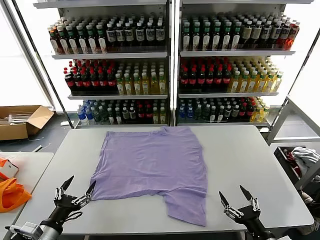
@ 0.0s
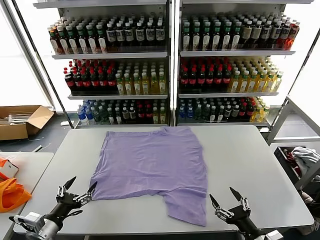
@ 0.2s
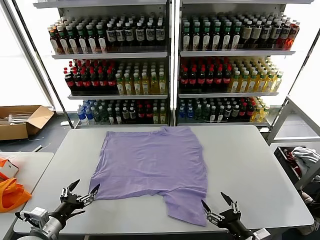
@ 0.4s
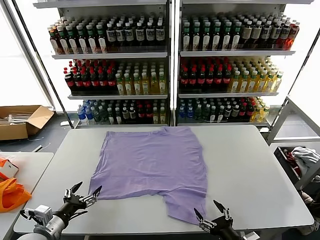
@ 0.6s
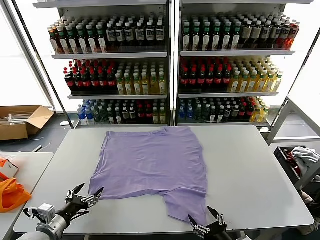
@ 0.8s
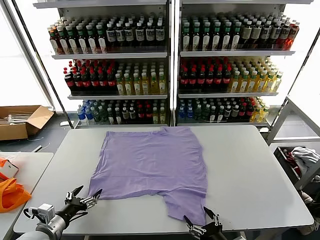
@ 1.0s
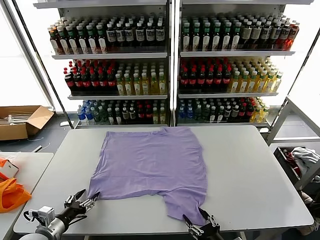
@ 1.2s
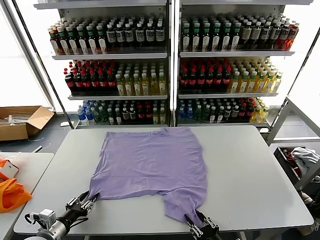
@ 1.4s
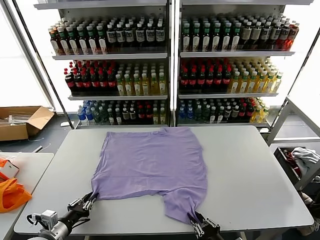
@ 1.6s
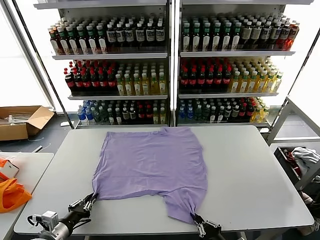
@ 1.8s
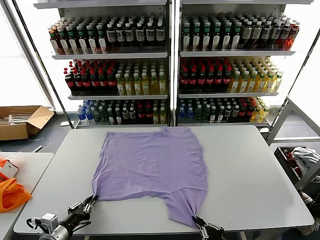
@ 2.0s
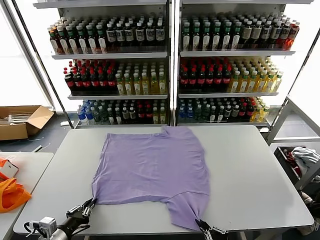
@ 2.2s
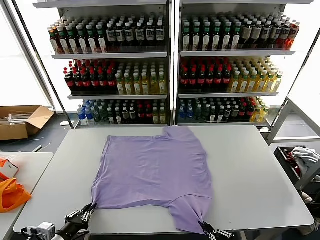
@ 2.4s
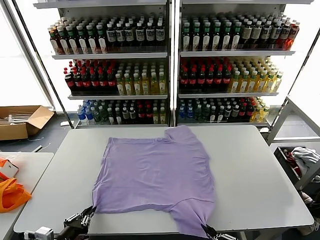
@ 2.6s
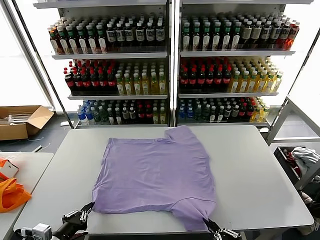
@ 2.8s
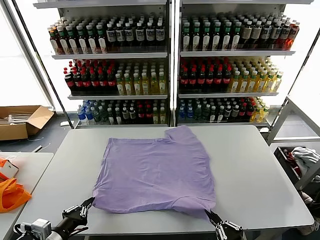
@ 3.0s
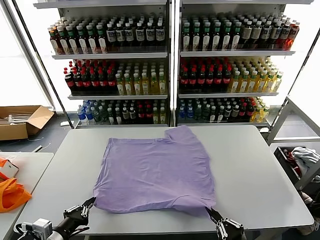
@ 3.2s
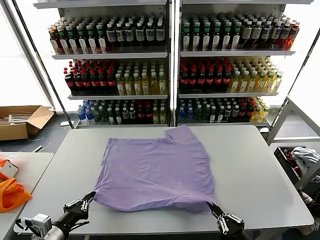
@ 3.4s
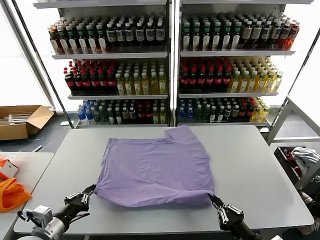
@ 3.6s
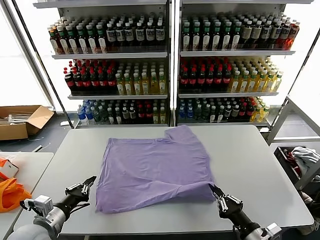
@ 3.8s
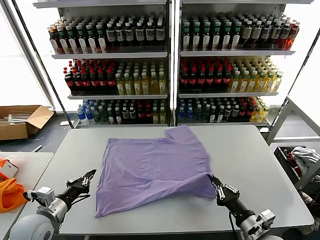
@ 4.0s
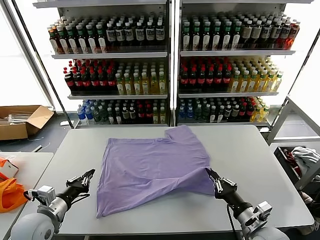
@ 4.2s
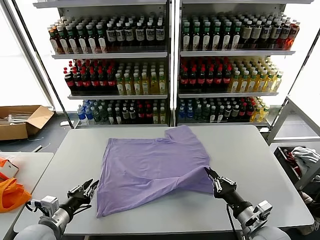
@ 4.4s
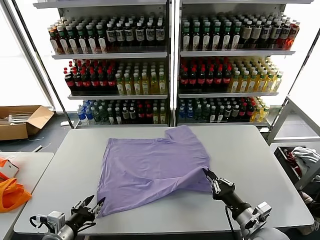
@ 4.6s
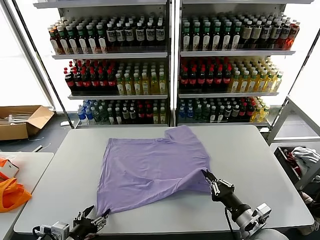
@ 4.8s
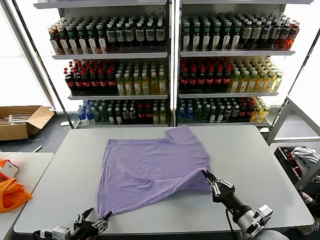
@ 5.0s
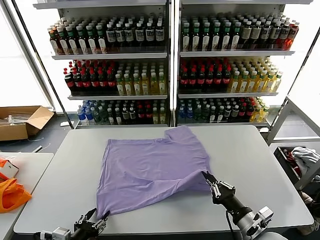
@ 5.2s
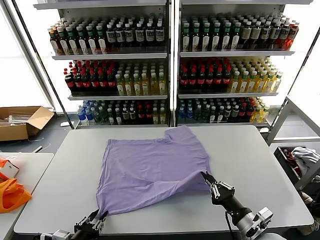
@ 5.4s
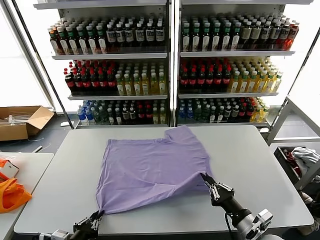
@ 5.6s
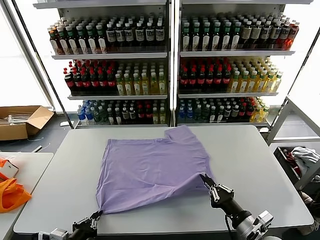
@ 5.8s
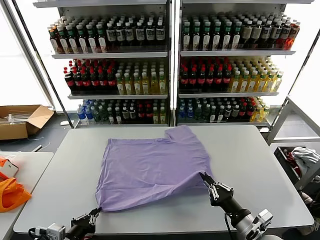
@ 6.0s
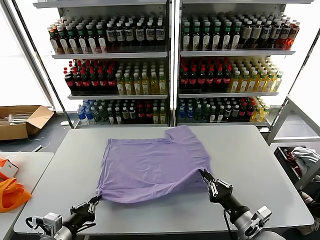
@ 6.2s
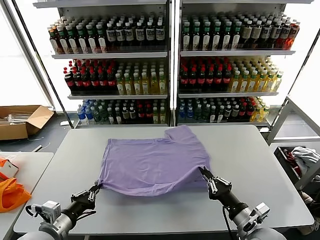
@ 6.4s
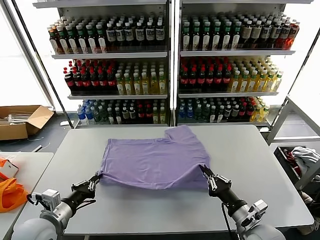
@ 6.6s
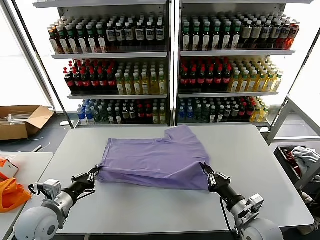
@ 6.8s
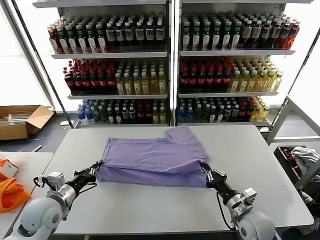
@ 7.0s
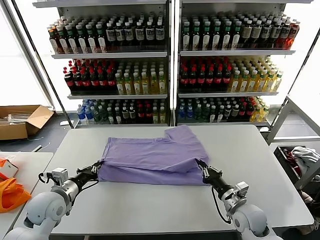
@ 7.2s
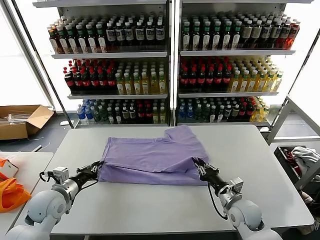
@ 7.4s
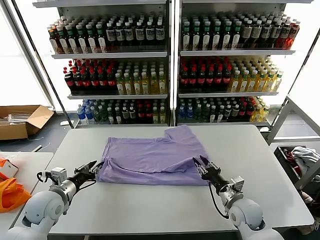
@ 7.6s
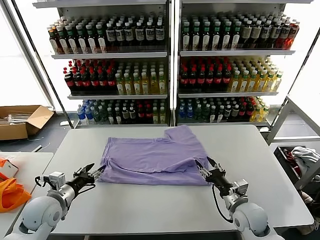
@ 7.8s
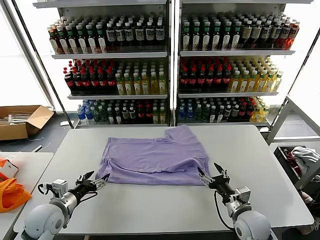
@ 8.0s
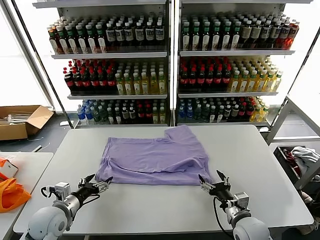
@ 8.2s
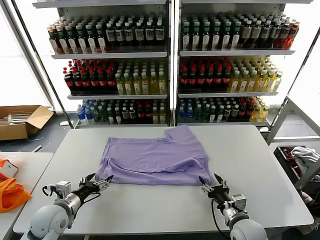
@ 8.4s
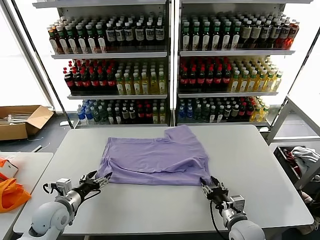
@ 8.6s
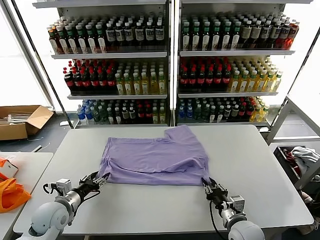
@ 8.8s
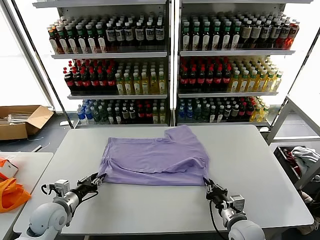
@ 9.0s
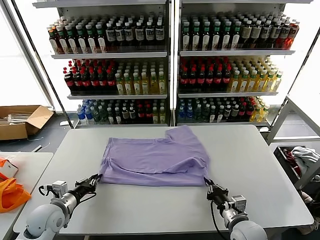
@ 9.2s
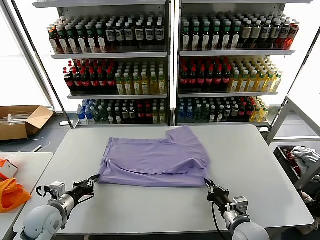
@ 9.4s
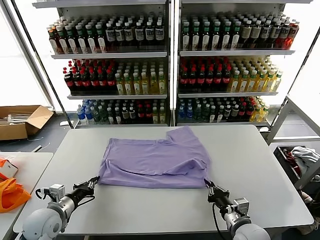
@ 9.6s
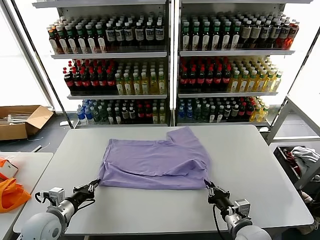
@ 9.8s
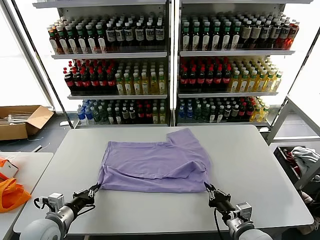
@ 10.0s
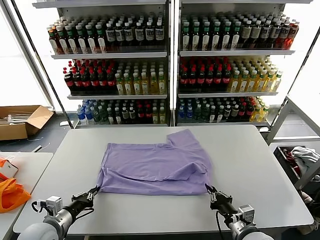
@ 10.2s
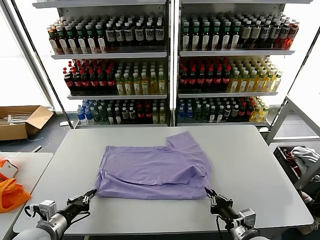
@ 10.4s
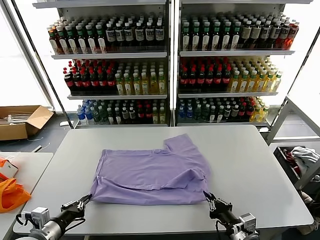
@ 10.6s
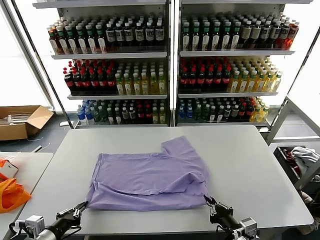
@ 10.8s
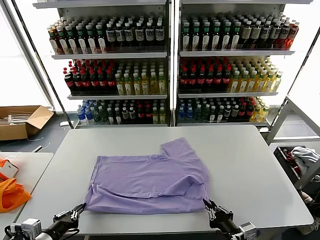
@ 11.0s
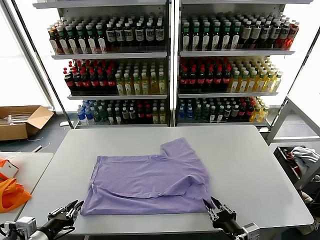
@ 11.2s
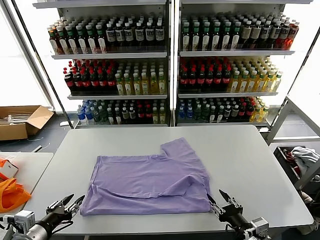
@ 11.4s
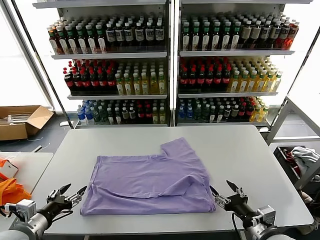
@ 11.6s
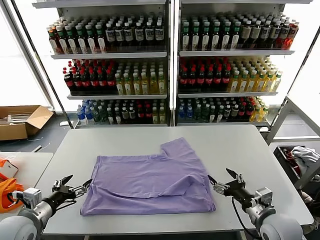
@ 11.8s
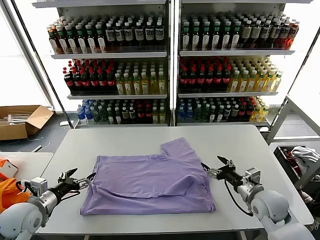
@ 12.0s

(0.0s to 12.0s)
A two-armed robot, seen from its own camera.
Task of the whole recording: fold and organize the clothes.
Step, 0.0s - 1.8s: use both grippers simultaneously to clamp the lower edge of the clothing fabric.
Step, 2.0s - 7.6s: use both grippers to drag the lower edge of the fabric forward and fold it over the upper edge.
Step, 7.8s - 11.2s: Drag the clothes downward with both gripper.
1.6s - 3.0s: The right gripper ends up about 10 cm from where it was; the left gripper moves upward, about 5 cm.
3.0s - 4.4s: The right gripper moves forward, approximately 10 cm, while the left gripper travels forward by about 5 cm.
4.4s - 6.0s: The left gripper goes approximately 5 cm backward, and opens, then closes again.
6.0s - 7.6s: Both grippers move forward, about 15 cm. The left gripper opens its fingers. Meanwhile the right gripper opens its fingers.
7.6s - 9.0s: The left gripper opens, then closes again. The right gripper shifts roughly 5 cm backward, and closes its fingers.
9.0s - 10.4s: The grippers both shift backward by roughly 5 cm. The left gripper closes.
10.4s - 12.0s: The right gripper is displaced forward by about 15 cm, and opens up. Meanwhile the left gripper shifts some 5 cm forward, and opens.

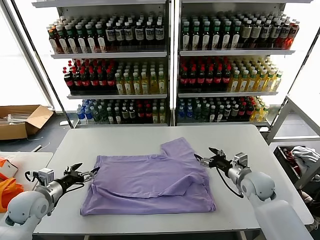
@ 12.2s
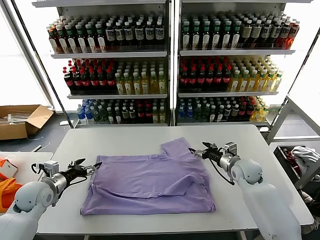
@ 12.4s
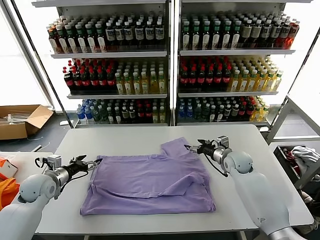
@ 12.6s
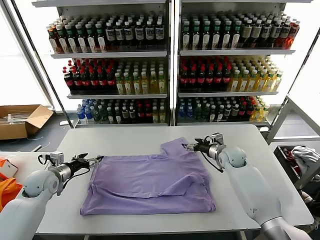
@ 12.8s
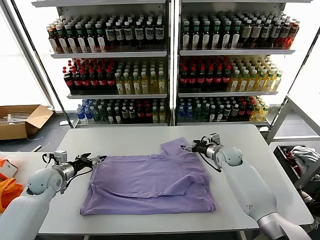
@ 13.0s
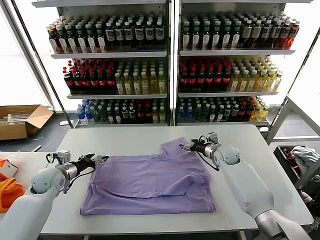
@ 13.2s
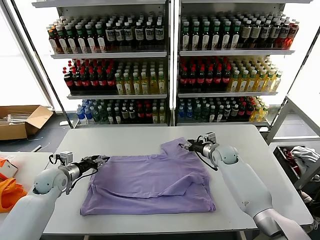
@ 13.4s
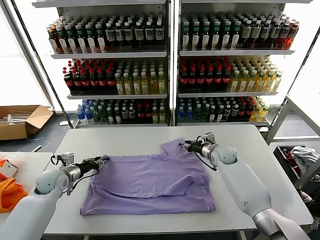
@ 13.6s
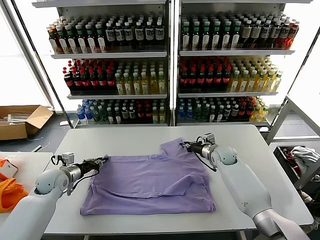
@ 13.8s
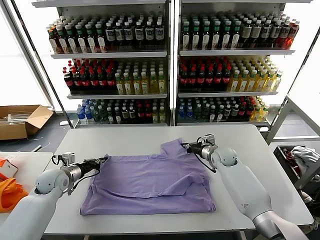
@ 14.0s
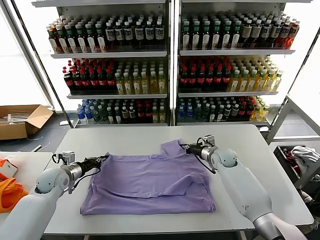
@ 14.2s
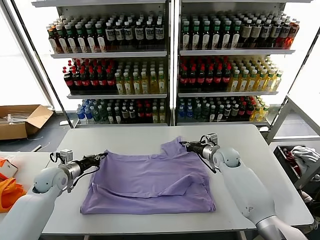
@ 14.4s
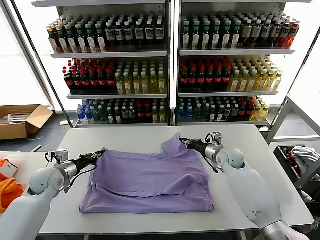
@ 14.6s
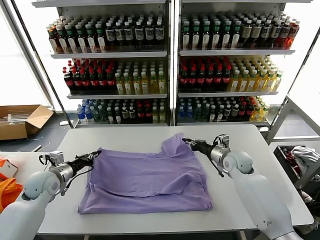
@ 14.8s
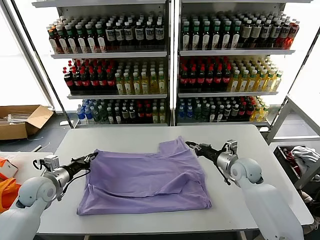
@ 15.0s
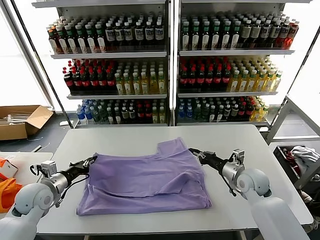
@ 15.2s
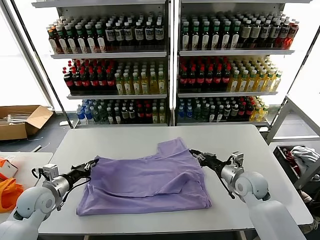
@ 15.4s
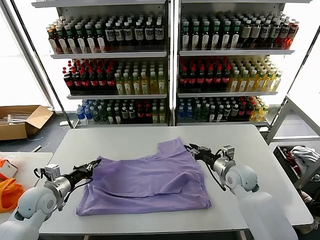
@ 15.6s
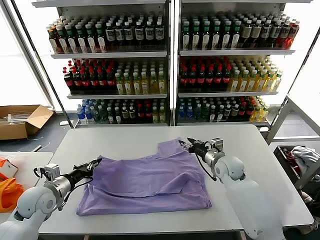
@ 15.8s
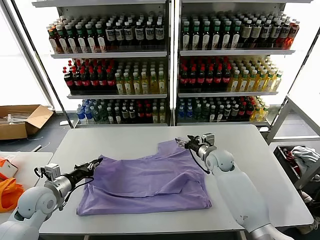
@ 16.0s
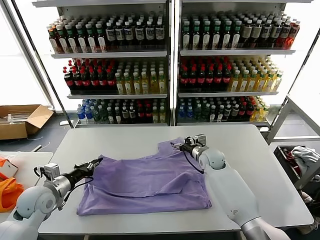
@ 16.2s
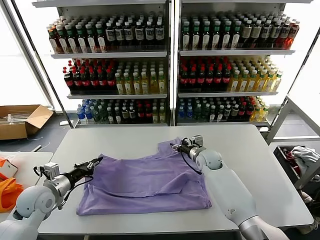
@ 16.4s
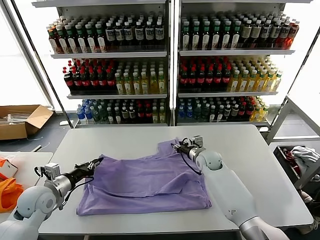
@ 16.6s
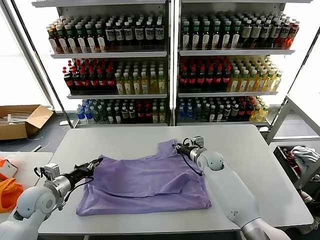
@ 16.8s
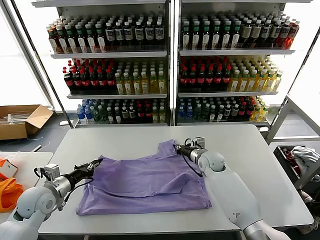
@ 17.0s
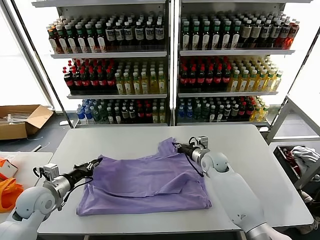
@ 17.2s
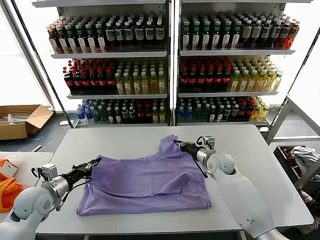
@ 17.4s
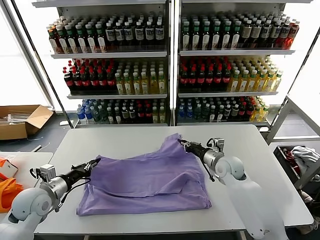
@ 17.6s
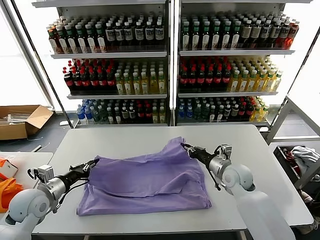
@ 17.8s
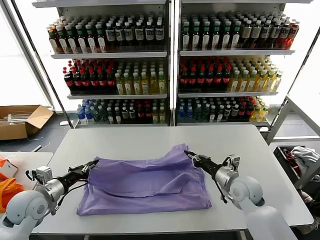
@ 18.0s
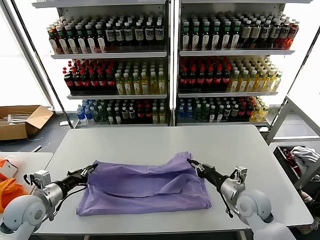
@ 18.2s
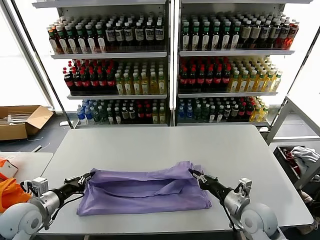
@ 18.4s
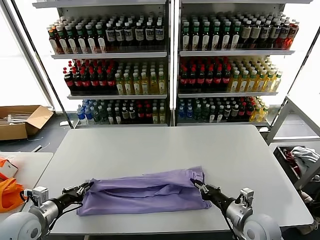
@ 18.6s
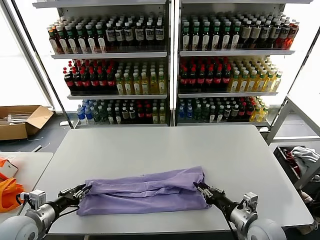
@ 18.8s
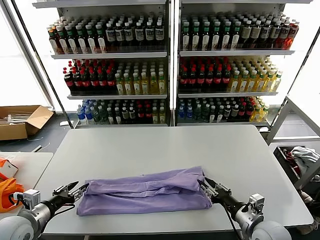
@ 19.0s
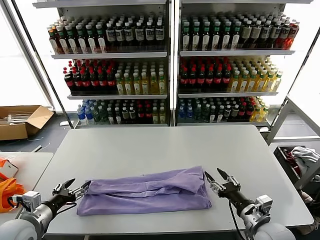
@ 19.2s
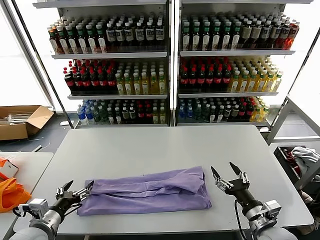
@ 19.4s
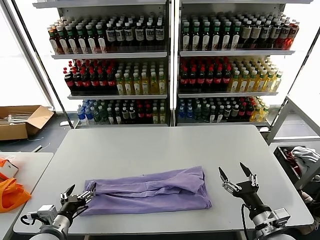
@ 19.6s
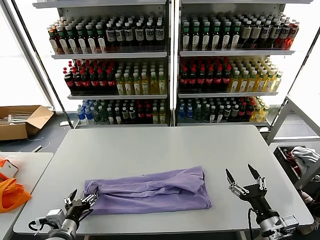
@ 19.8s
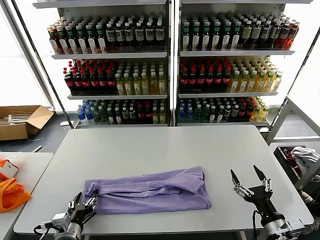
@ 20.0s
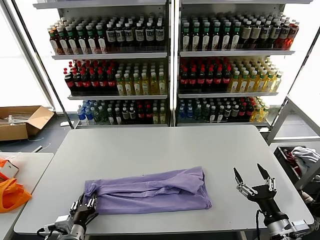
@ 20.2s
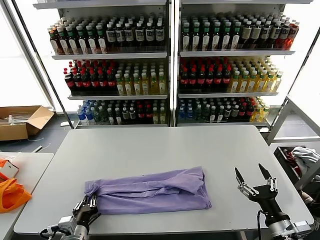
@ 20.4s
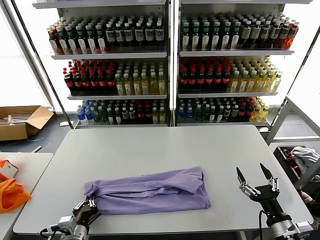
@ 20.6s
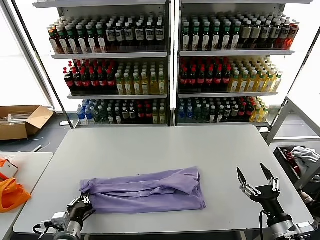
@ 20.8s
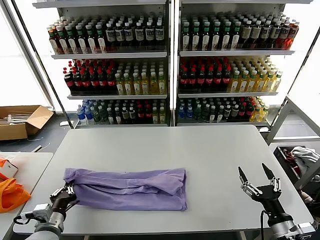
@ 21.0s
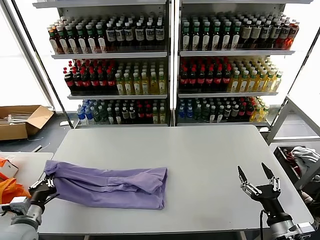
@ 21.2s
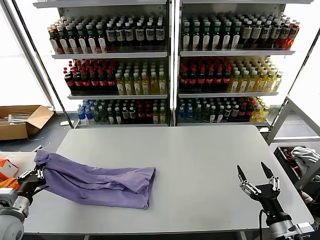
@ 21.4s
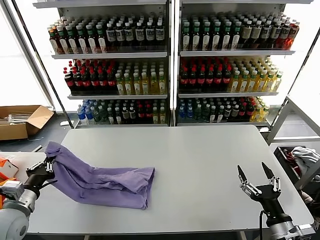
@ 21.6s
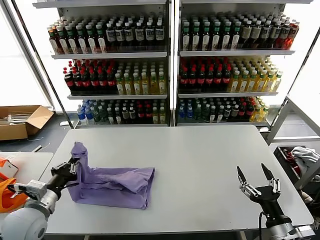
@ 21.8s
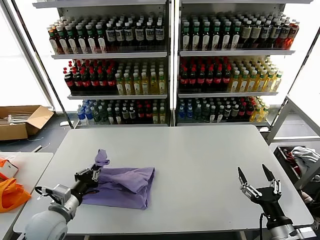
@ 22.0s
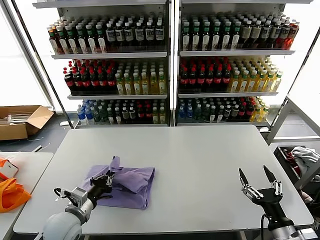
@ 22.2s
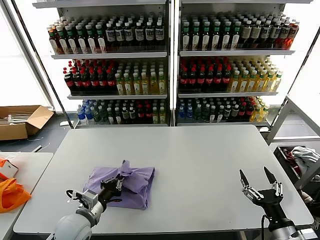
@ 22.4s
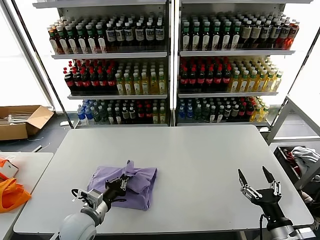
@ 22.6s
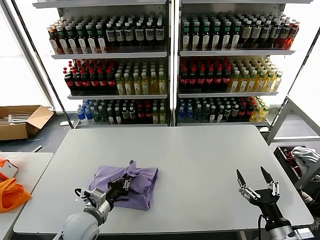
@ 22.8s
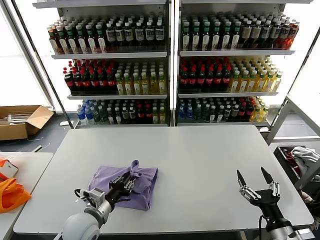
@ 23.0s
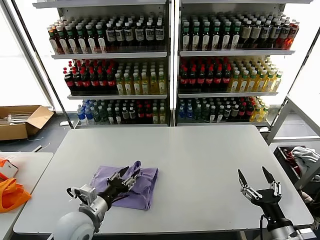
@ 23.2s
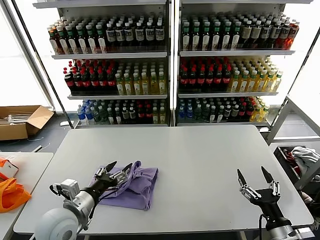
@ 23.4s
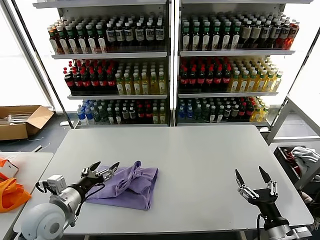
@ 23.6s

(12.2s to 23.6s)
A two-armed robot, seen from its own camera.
Task of the whole recording: fold and organize the clothes.
Step, 12.2s - 14.0s: use both grippers simultaneously to clamp the upper edge of the clothing fabric.
Step, 14.2s - 19.0s: use both grippers to drag the upper edge of the fabric backward and fold it over the lower edge.
Step, 19.2s - 20.6s: use the left gripper to clamp the left edge of the fabric.
Step, 20.8s - 23.2s: use the left gripper to drag the left edge of the fabric to the left and folds it over the right edge.
12.2s - 13.6s: The right gripper is displaced forward and to the left by approximately 15 cm, and closes up, while the left gripper is displaced forward by some 10 cm, and closes its fingers.
13.6s - 15.0s: The left gripper moves backward, some 5 cm, and closes its fingers. The right gripper travels backward by some 10 cm, and closes up.
15.0s - 16.4s: The right gripper moves to the left and forward, approximately 15 cm, and opens up.
16.4s - 17.8s: The right gripper is displaced backward and to the right by about 15 cm, and closes up.
17.8s - 19.4s: The left gripper shifts roughly 10 cm backward, and opens; the right gripper shifts about 20 cm backward, and opens.
19.4s - 20.8s: The left gripper heads to the right and downward, covering approximately 10 cm, and closes up; the right gripper moves approximately 5 cm.
20.8s - 22.2s: The left gripper shifts about 10 cm forward and upward, and goes to the left and returns, about 15 cm each way.
22.2s - 23.6s: The left gripper heads upward, covering roughly 5 cm, and opens its fingers.
